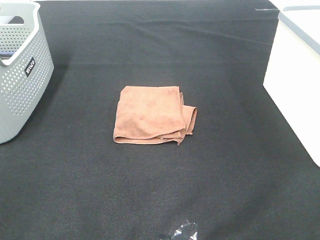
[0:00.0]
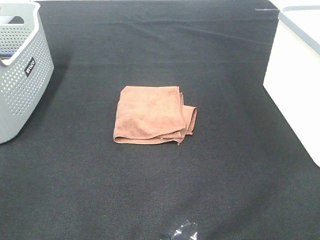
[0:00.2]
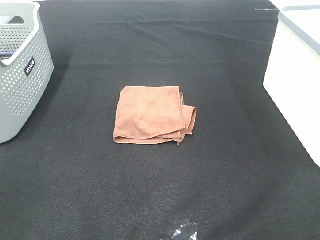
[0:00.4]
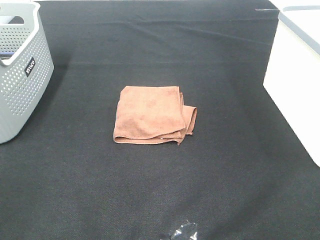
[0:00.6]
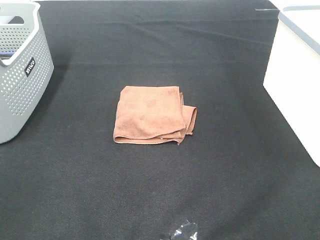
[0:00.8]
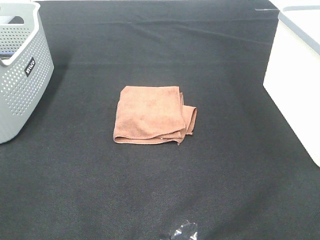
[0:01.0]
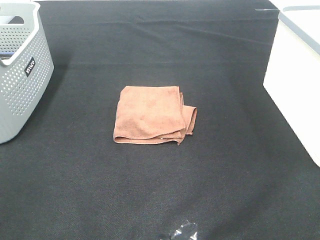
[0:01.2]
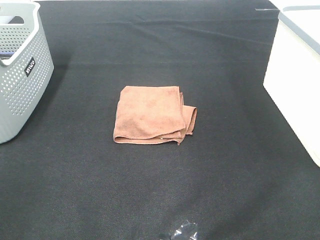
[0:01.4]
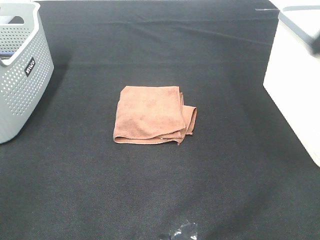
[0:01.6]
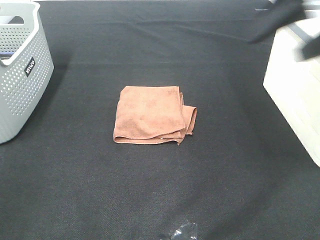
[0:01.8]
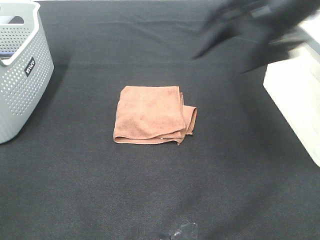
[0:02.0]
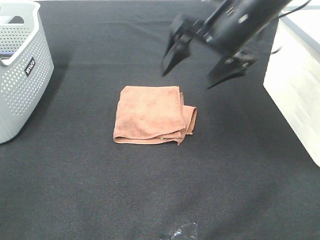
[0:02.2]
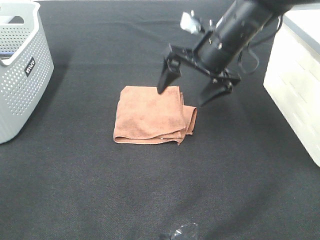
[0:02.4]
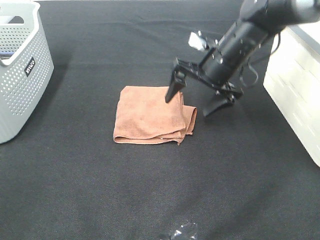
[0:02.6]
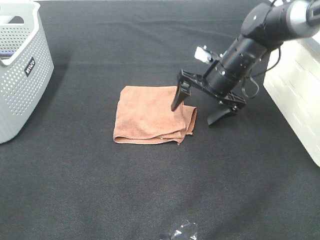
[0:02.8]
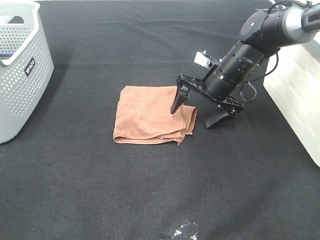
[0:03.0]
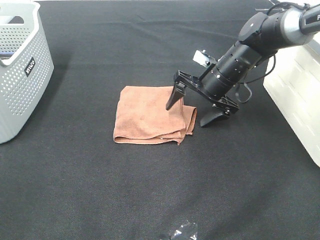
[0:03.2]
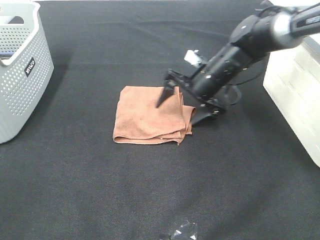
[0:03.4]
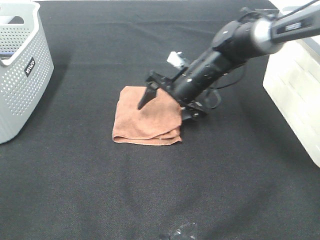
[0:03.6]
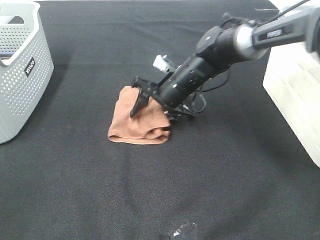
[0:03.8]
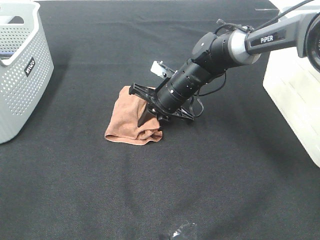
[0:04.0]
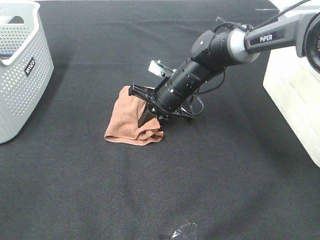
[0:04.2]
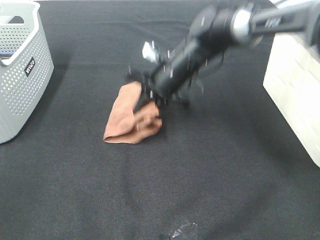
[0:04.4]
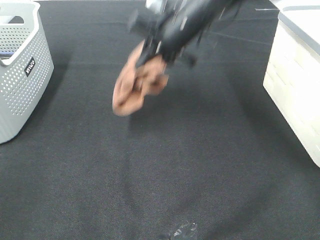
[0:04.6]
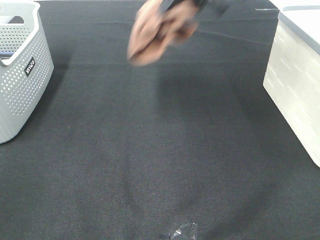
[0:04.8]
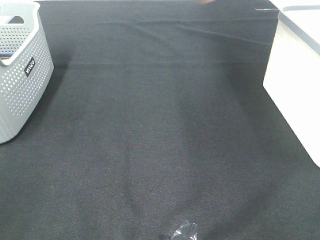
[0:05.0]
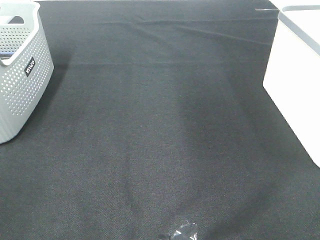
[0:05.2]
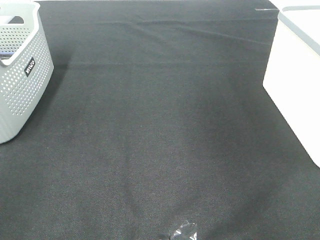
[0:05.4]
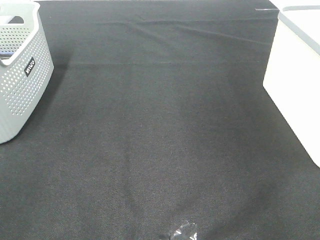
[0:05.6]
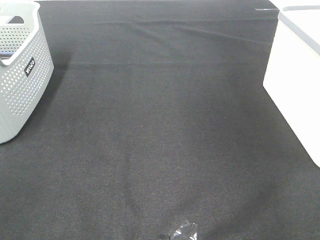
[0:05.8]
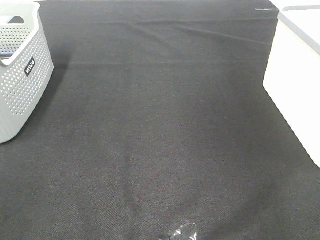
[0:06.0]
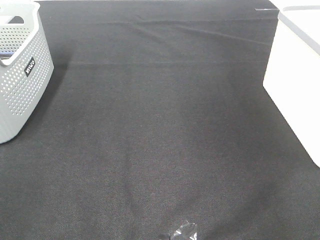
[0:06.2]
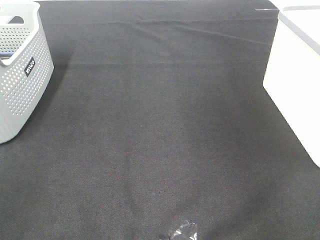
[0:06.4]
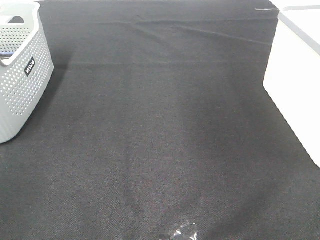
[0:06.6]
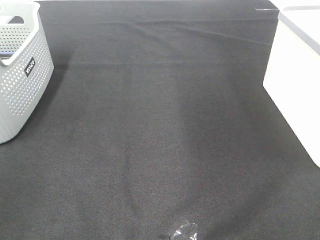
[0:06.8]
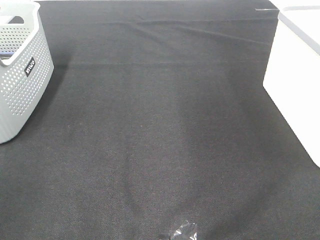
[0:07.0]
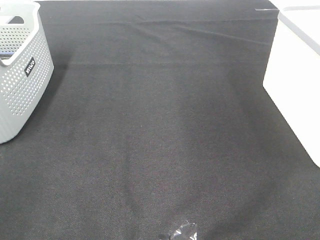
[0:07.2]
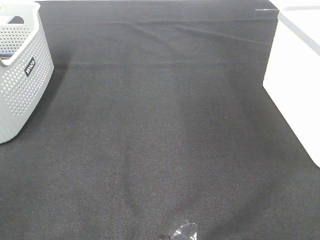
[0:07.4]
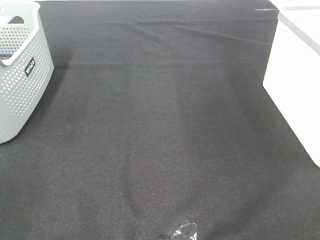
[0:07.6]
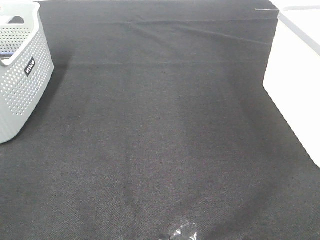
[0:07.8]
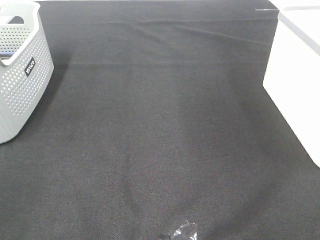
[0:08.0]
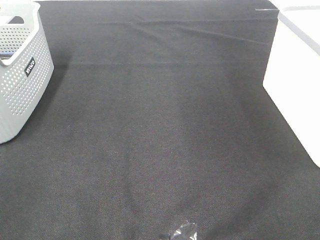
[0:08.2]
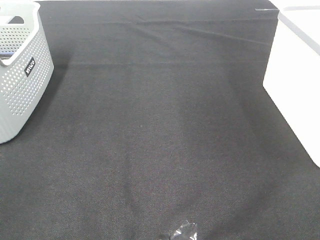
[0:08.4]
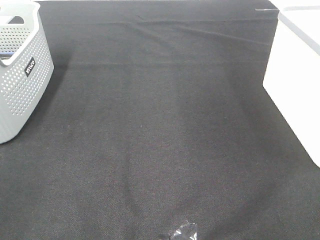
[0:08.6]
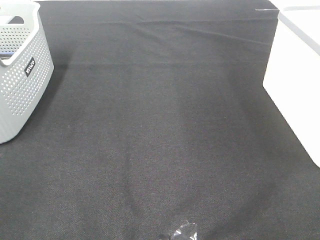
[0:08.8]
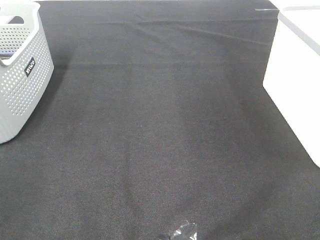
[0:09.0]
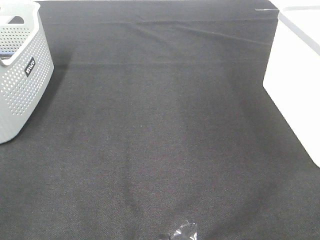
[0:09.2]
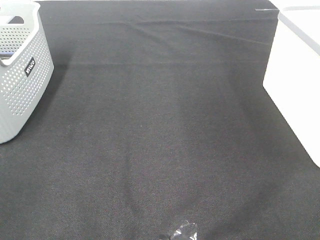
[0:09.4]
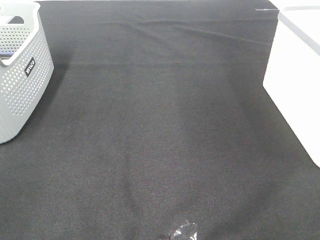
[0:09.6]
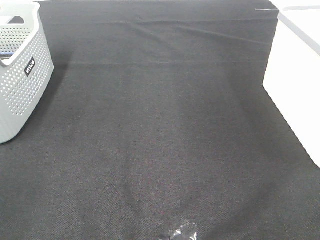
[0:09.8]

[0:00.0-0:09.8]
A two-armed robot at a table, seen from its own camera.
Step, 0:00.0 to 0:04.2: Right hand: grab the folded brown towel.
Step, 0:04.4 to 0:06.2: Right hand: place the brown towel in right basket.
0:01.4 to 0:02.8: The right gripper travels downward, forward and to the left by some 35 cm.
0:02.8 to 0:04.2: The right gripper moves to the left, roughly 10 cm, and closes.
0:04.2 to 0:05.6: The right gripper moves to the right and upward, approximately 50 cm.
0:08.4 to 0:09.8: Both grippers stay put.

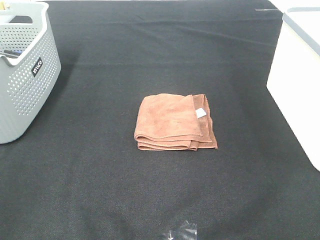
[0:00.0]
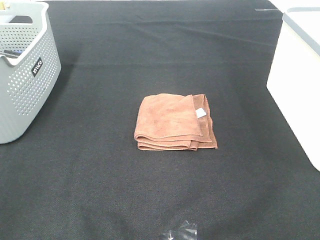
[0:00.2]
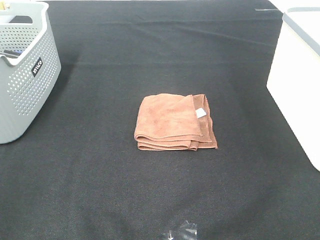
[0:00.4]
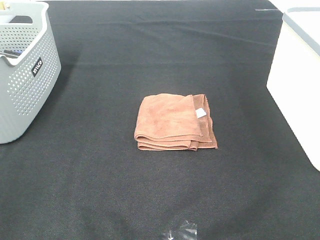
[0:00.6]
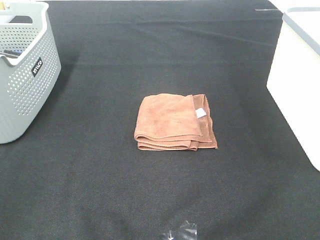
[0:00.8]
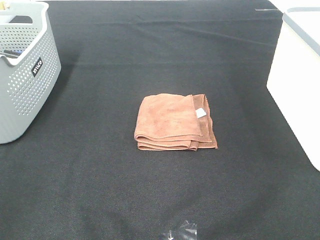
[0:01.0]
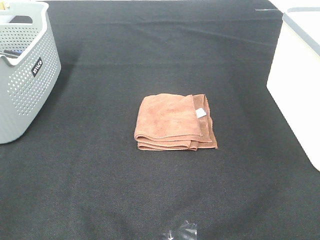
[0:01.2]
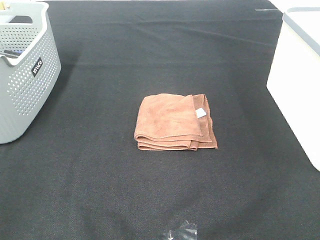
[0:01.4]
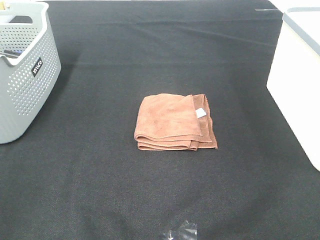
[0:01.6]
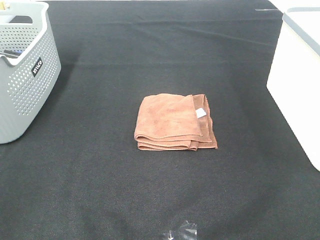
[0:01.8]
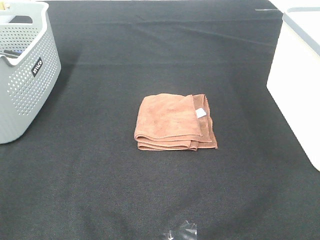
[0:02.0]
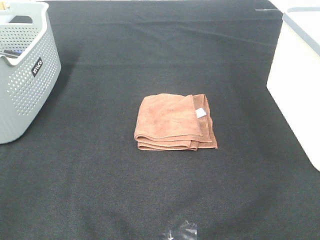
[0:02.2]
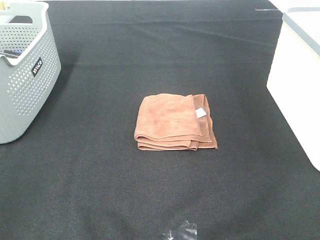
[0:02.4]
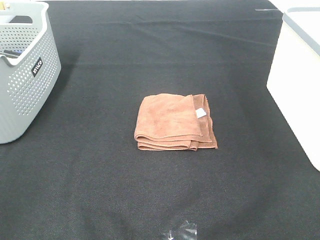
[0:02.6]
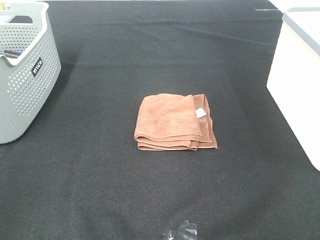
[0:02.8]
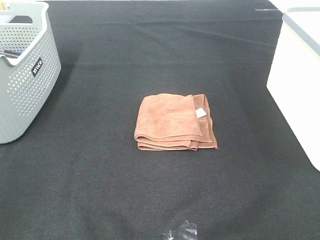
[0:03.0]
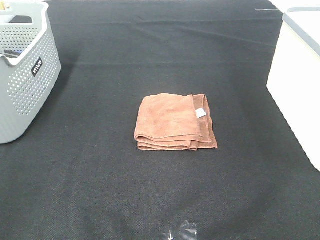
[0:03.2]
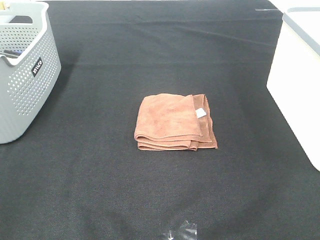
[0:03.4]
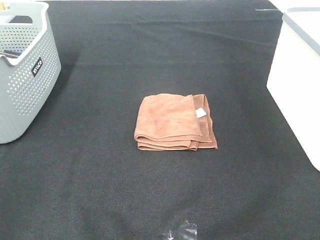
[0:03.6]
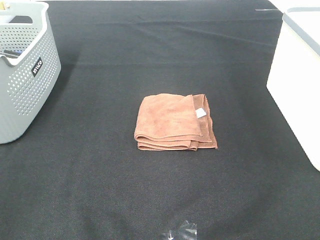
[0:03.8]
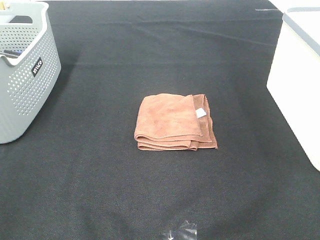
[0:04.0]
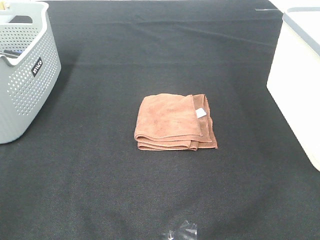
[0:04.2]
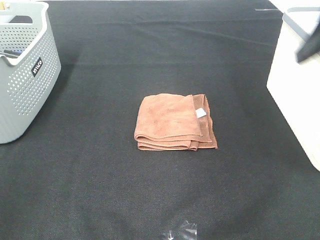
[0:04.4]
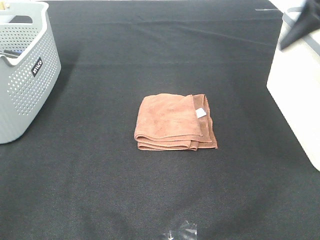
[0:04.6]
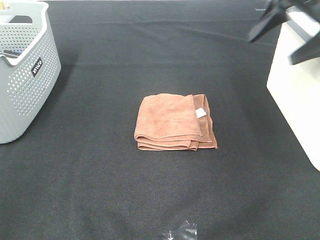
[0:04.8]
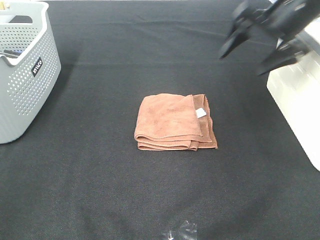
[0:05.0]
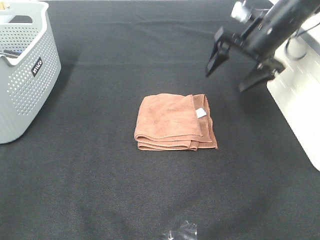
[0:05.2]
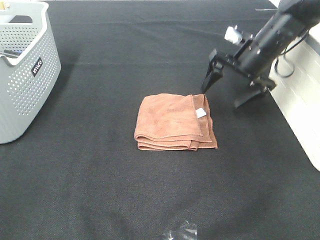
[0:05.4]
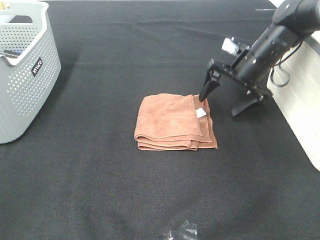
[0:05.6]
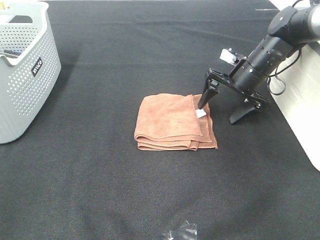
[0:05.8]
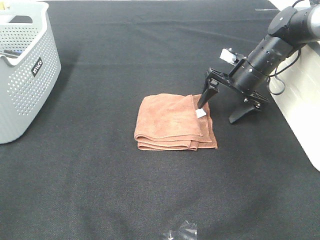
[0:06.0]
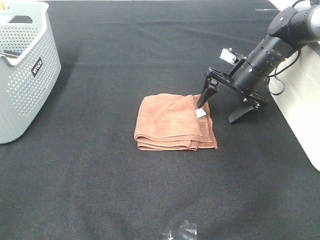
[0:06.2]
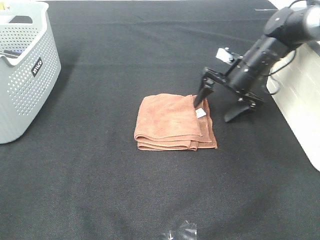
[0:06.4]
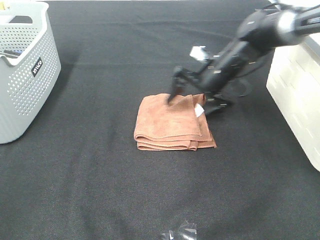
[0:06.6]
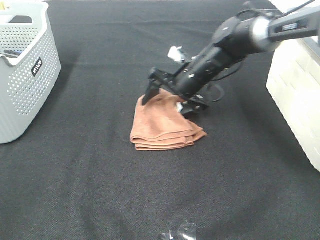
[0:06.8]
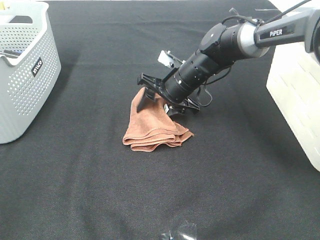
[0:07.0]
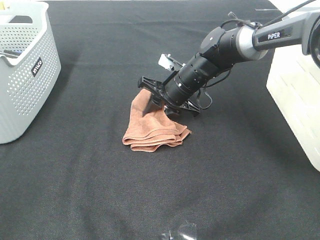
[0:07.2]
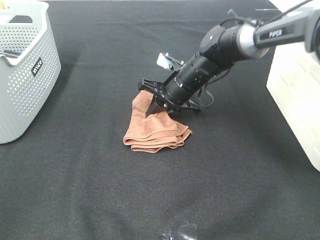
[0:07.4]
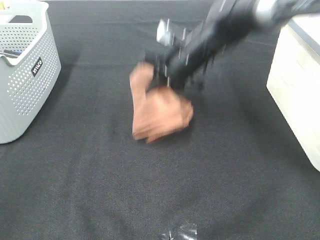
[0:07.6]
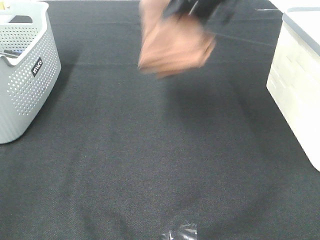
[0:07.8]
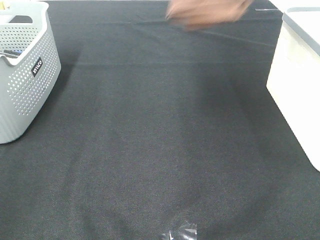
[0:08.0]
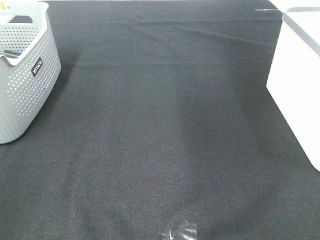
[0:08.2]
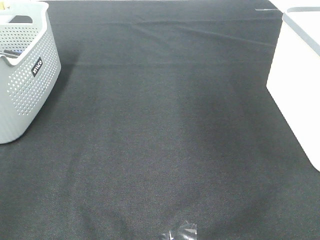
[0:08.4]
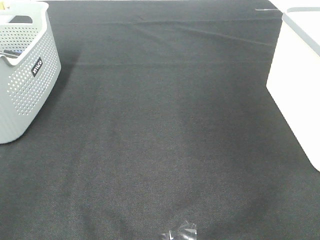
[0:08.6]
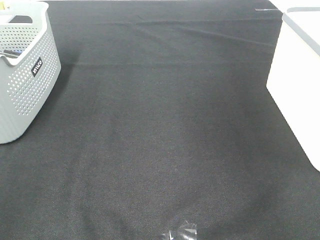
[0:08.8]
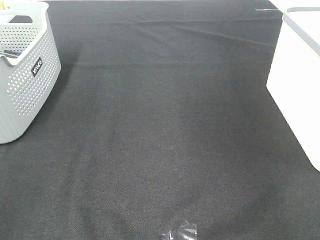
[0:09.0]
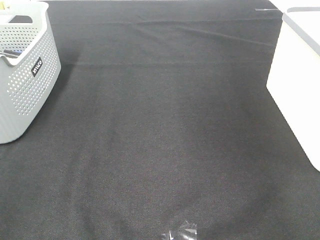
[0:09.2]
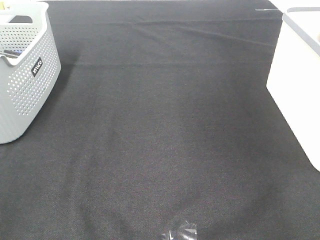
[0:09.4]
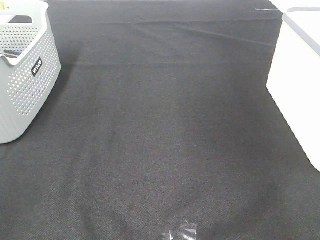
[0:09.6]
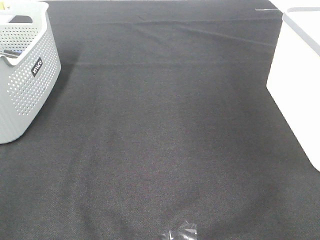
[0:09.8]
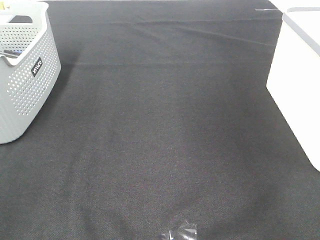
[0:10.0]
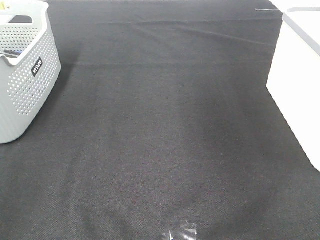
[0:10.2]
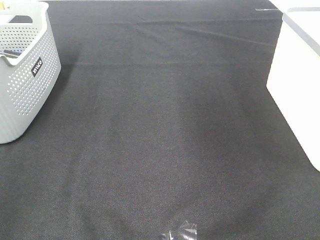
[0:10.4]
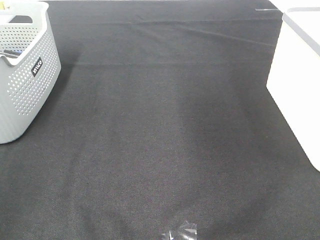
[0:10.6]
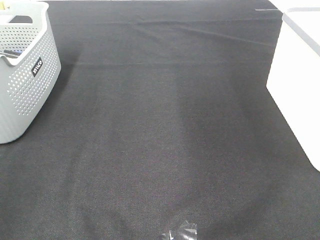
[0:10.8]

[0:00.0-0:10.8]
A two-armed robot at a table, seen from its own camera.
Step, 0:00.0 to 0:07.2: Right hand: grab the folded brown towel.
Step, 0:07.4 to 0:09.6: Right hand: place the brown towel in right basket.
0:00.0 to 0:03.0: Neither gripper changes place.
0:03.0 to 0:04.6: The right gripper goes some 30 cm forward.
0:04.6 to 0:06.2: The right gripper shifts about 25 cm downward and forward.
0:06.2 to 0:07.8: The right gripper travels upward by approximately 20 cm, and closes its fingers.
0:07.8 to 0:09.2: The right gripper shifts about 30 cm to the right.

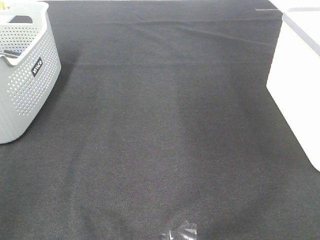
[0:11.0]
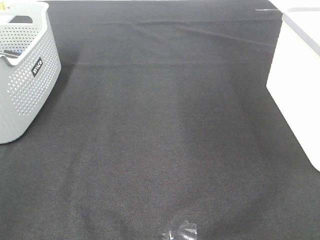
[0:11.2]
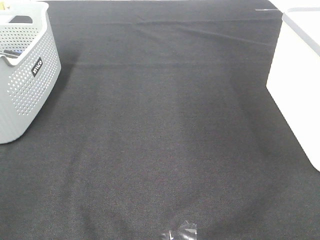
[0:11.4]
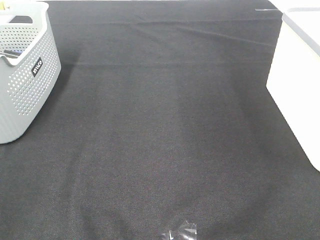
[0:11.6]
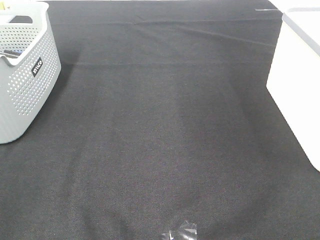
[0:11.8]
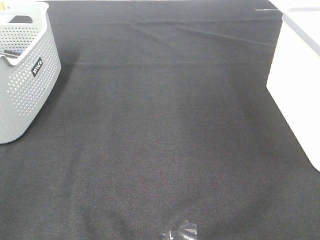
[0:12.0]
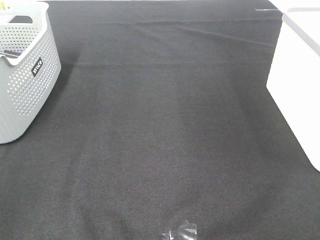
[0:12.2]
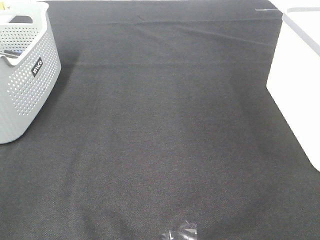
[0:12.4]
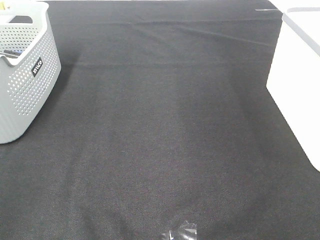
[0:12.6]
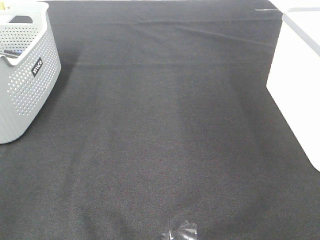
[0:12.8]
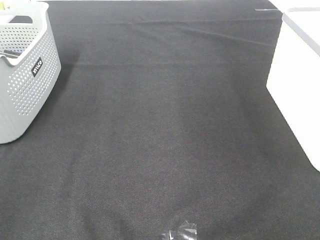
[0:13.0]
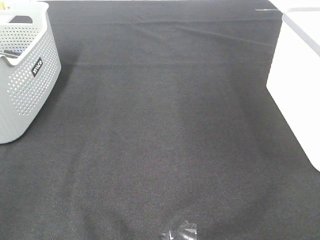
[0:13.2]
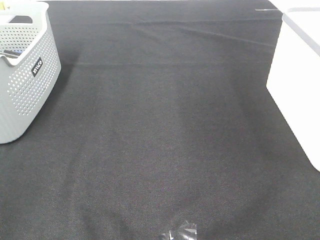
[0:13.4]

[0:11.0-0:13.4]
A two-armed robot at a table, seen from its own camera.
0:12.2 to 0:13.4: Both grippers stay about where they are.
